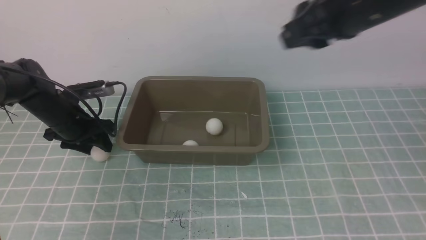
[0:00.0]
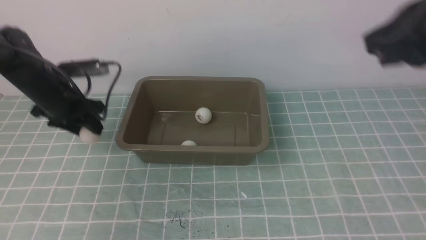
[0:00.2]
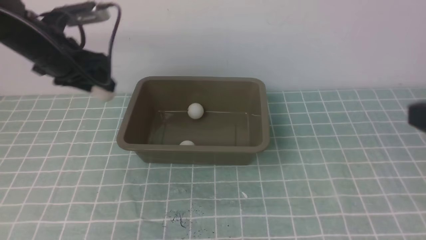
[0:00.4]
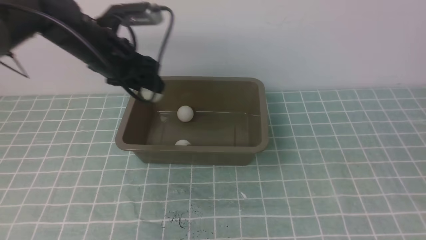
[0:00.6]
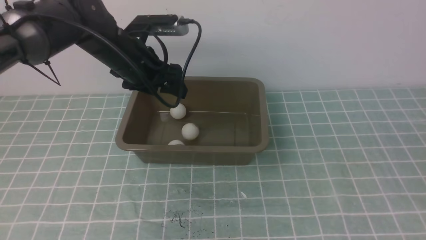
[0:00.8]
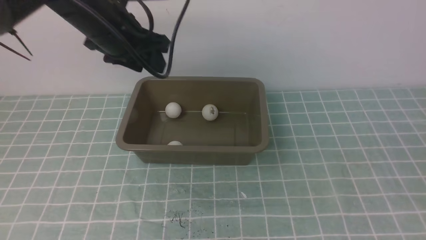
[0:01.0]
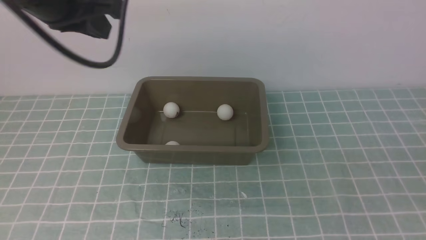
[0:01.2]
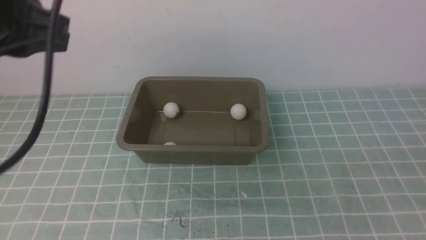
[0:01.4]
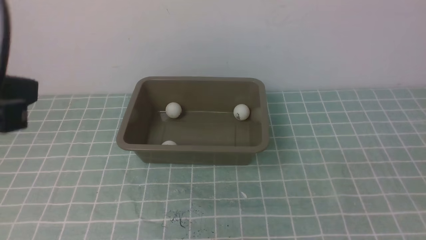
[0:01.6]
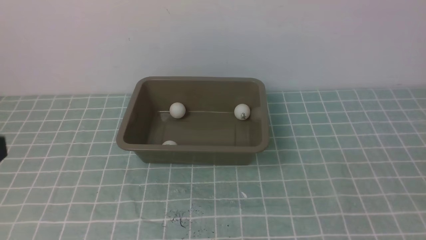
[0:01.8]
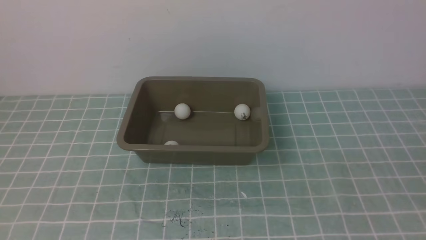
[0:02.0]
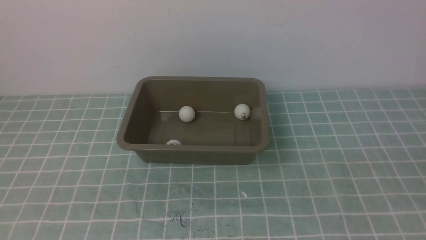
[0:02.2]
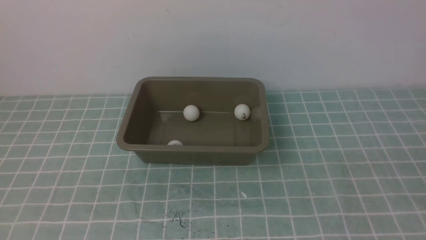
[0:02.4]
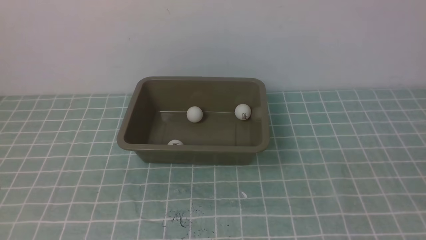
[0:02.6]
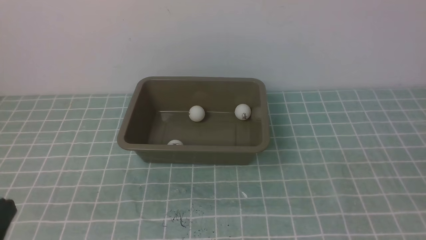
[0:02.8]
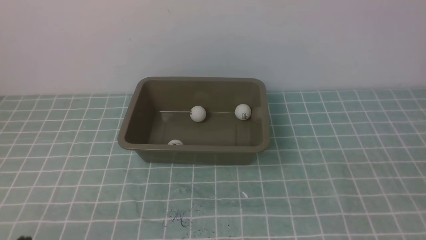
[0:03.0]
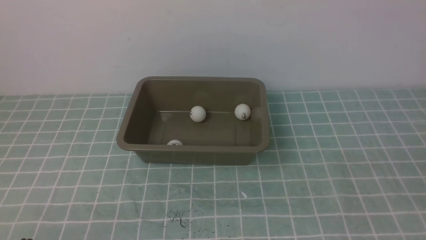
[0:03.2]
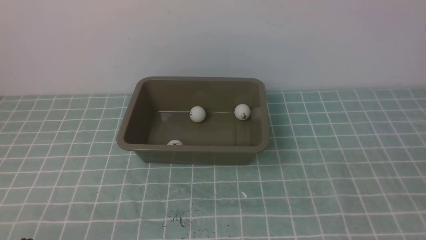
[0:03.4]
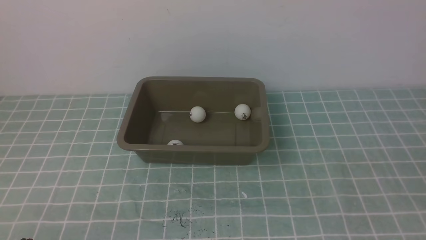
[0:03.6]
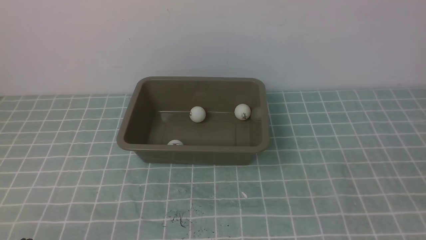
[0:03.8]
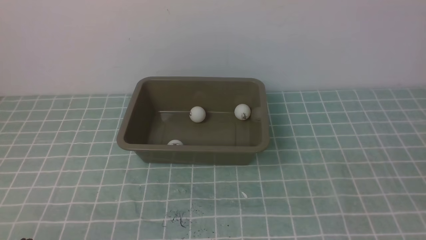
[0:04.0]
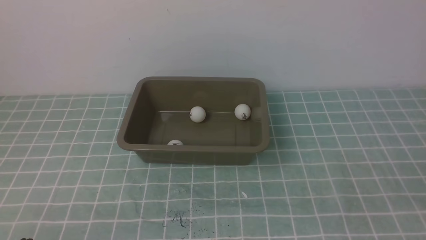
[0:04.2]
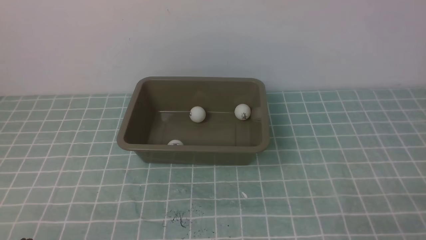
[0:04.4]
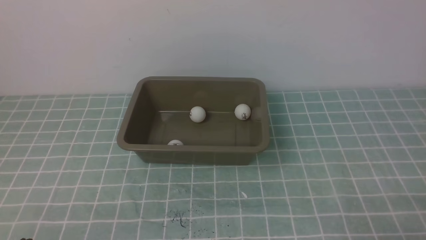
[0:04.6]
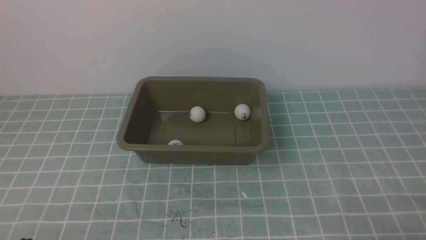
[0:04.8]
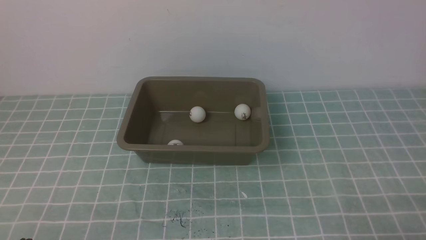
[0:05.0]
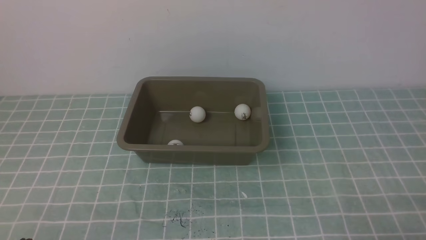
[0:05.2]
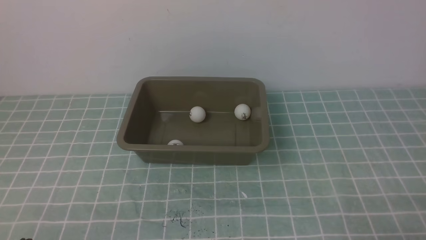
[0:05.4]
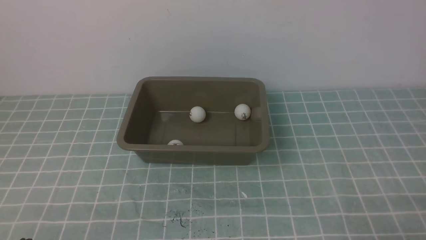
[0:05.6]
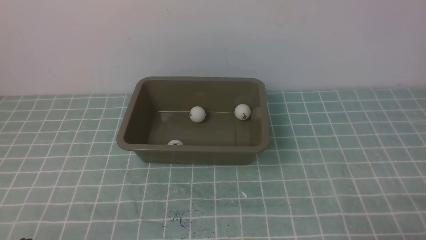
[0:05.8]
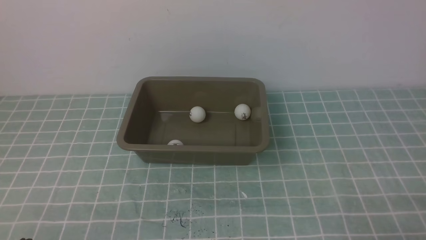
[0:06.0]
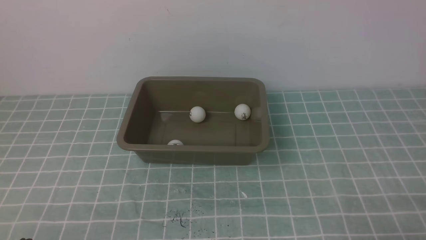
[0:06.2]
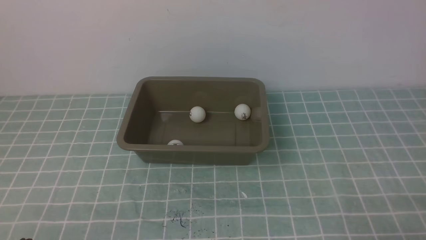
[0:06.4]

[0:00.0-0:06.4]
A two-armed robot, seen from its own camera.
Step, 0:00.0 to 0:00.6: use the left arm to clamp the table tennis ball closest to it.
Step, 0:00.8 to 0:01.2: use the left arm to put the table tennis ball into the box.
0:00.0 to 0:01.6: The right gripper travels backward and to the right by approximately 35 cm, and closes up. Meanwhile the left gripper travels upward and backward by approximately 35 cm, and closes up.
0:01.6 to 0:03.2: The left gripper moves downward and backward, about 30 cm.
0:04.8 to 0:06.4: The two grippers keep their place.

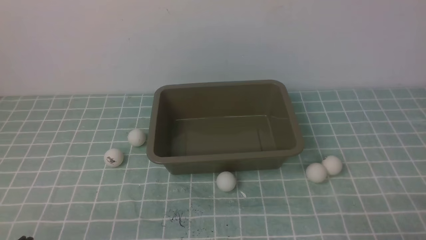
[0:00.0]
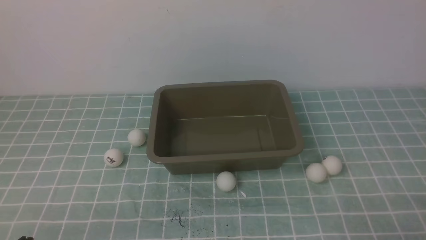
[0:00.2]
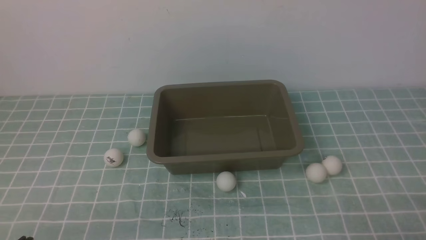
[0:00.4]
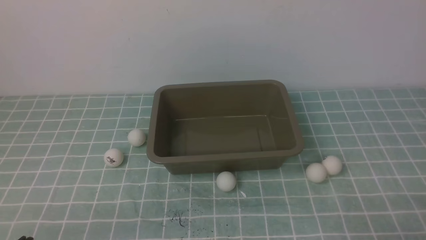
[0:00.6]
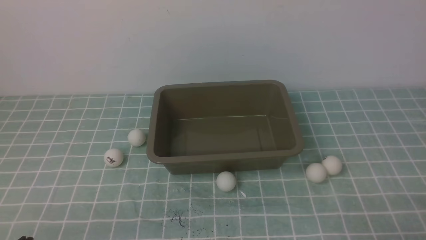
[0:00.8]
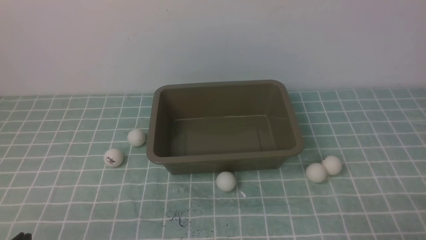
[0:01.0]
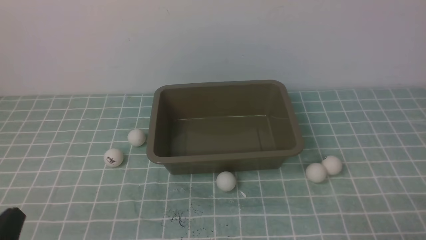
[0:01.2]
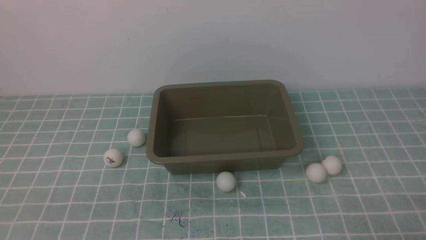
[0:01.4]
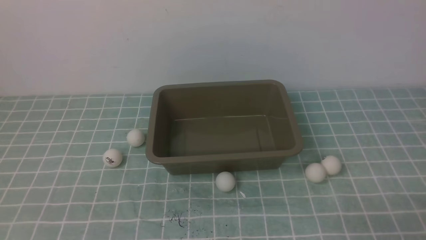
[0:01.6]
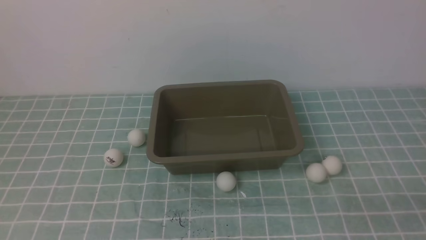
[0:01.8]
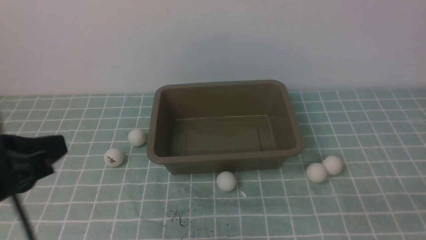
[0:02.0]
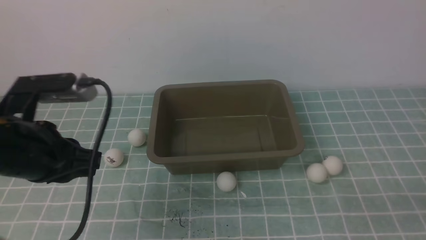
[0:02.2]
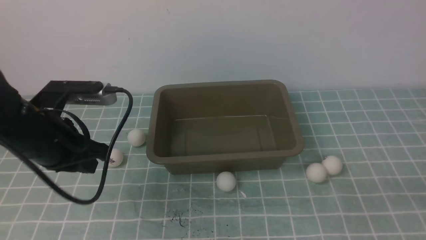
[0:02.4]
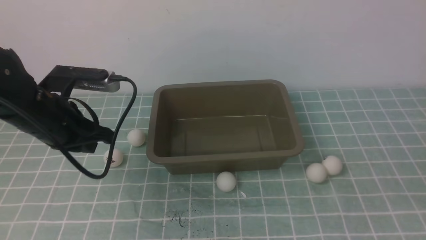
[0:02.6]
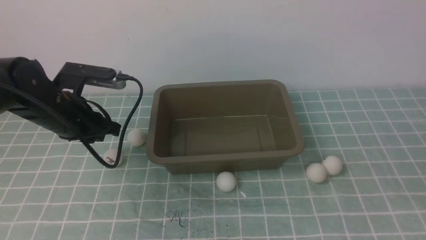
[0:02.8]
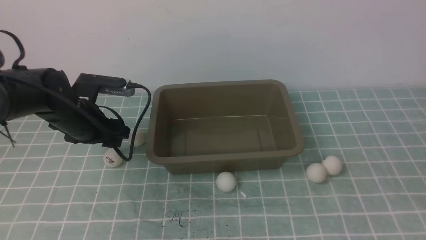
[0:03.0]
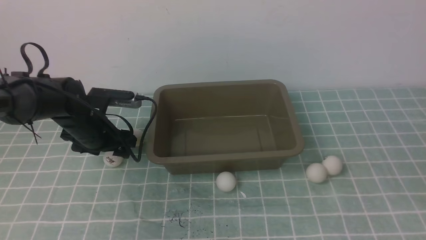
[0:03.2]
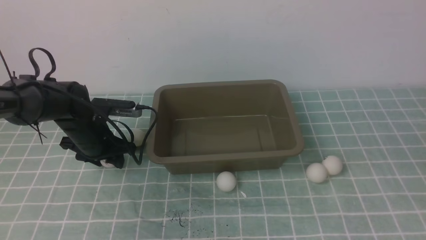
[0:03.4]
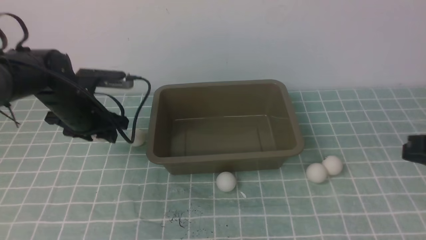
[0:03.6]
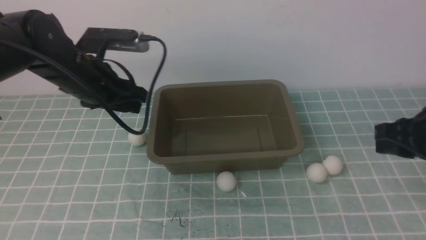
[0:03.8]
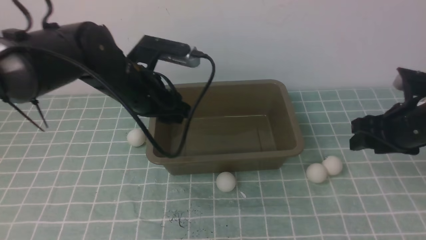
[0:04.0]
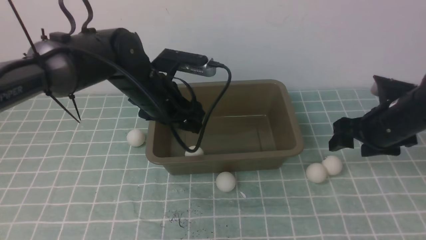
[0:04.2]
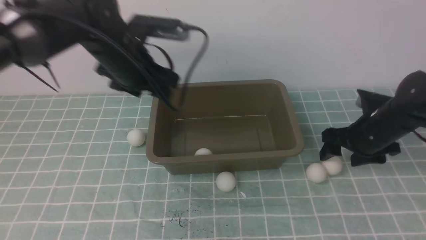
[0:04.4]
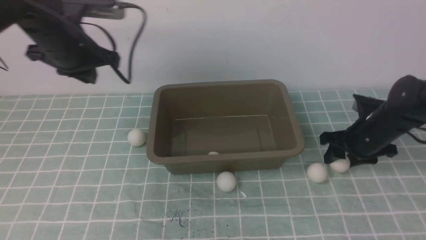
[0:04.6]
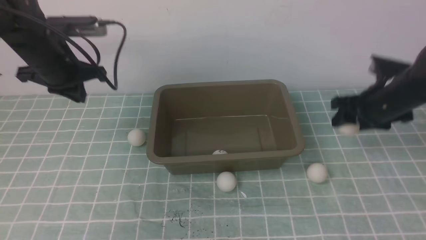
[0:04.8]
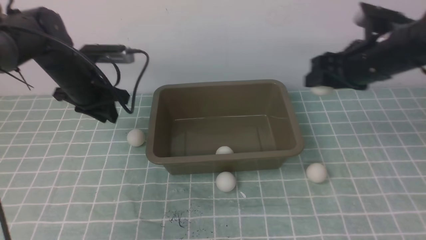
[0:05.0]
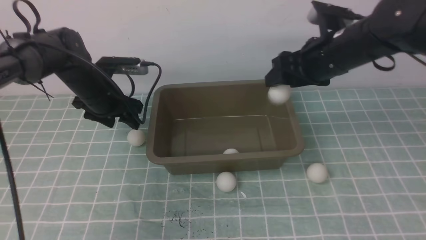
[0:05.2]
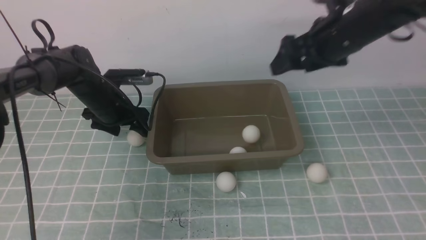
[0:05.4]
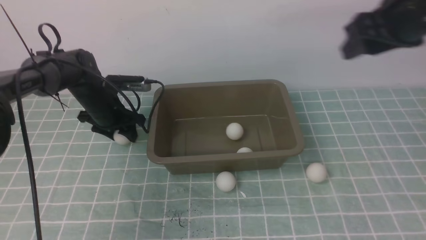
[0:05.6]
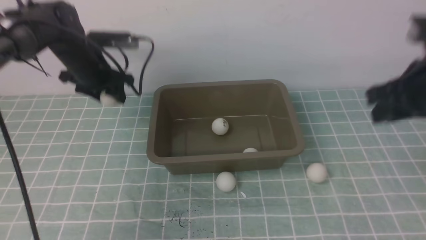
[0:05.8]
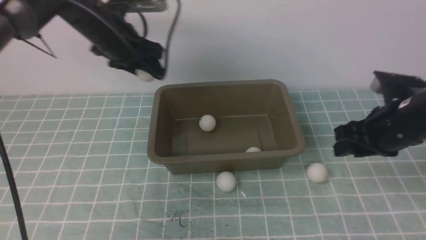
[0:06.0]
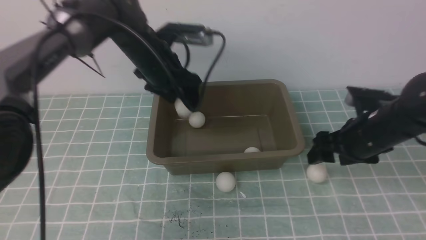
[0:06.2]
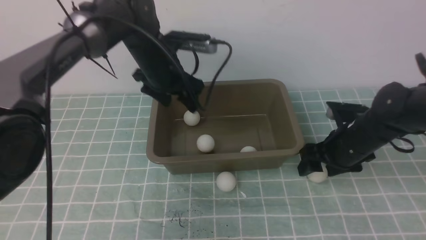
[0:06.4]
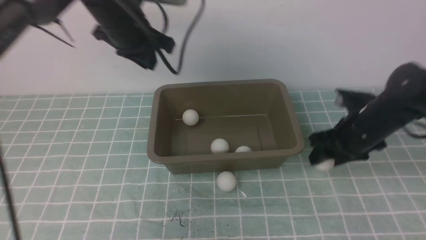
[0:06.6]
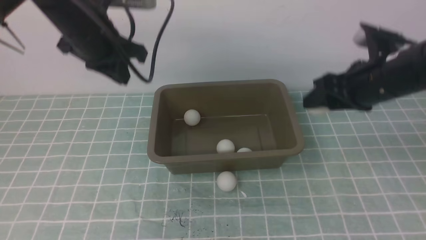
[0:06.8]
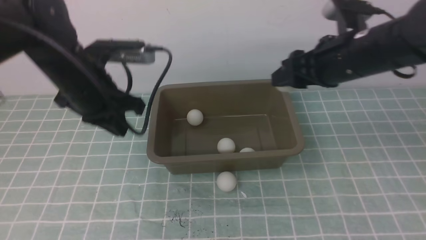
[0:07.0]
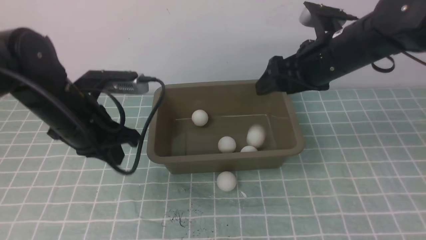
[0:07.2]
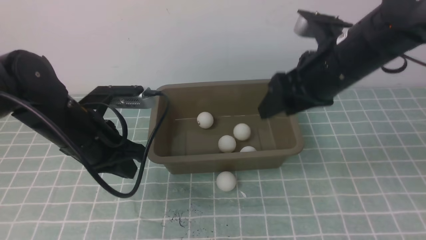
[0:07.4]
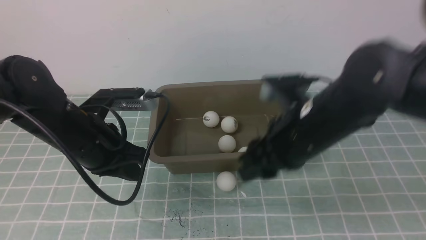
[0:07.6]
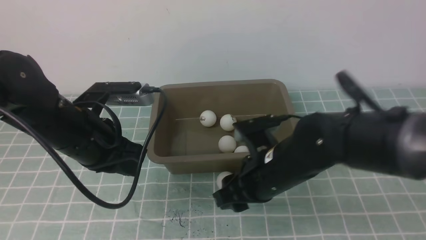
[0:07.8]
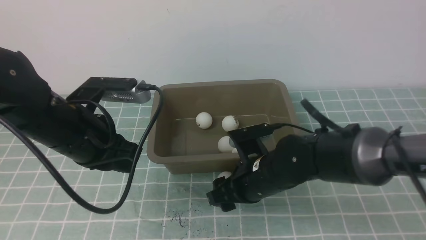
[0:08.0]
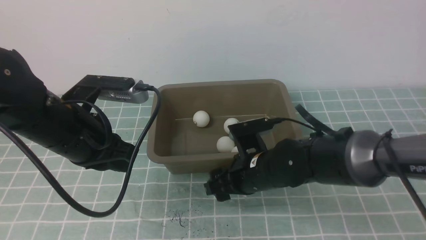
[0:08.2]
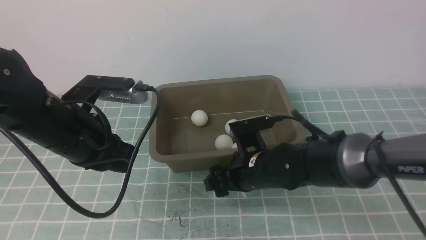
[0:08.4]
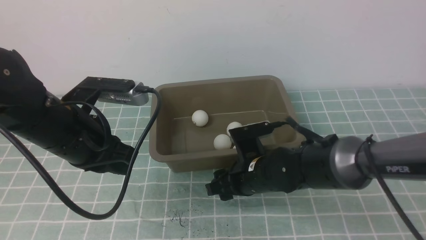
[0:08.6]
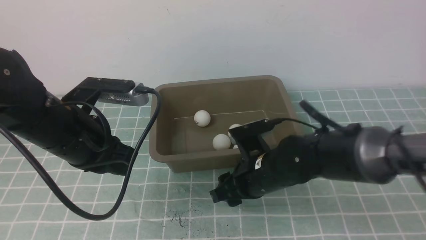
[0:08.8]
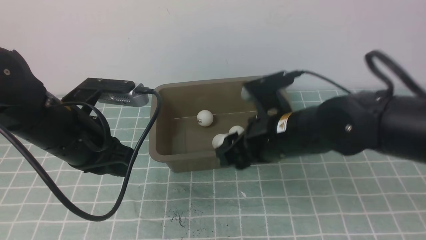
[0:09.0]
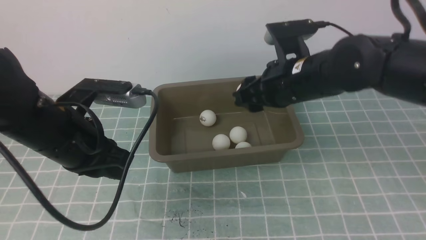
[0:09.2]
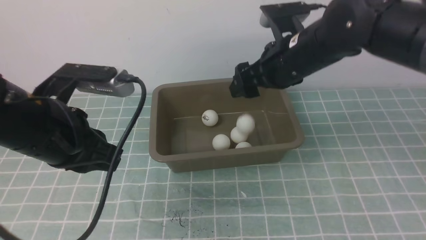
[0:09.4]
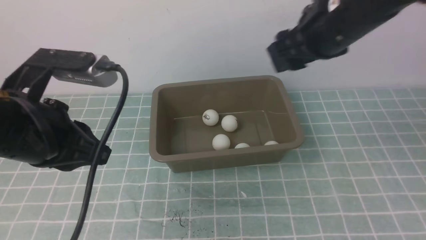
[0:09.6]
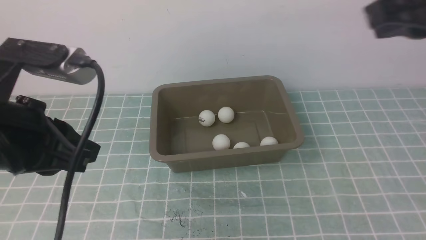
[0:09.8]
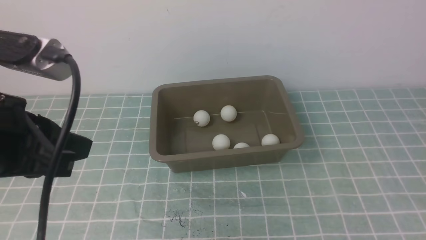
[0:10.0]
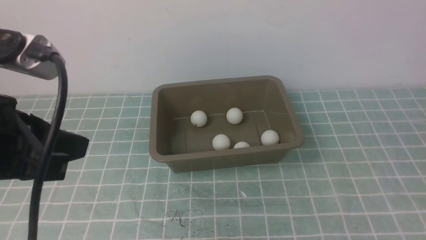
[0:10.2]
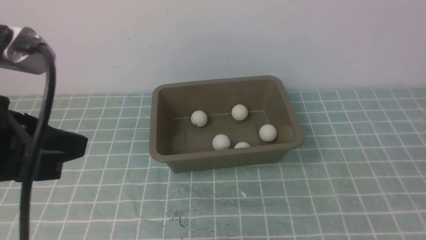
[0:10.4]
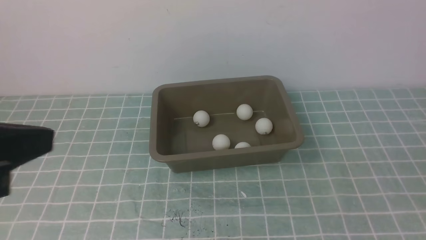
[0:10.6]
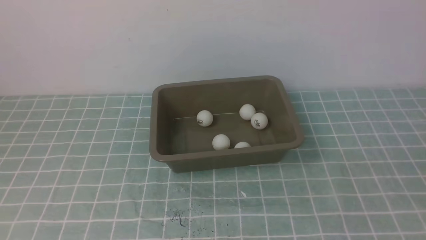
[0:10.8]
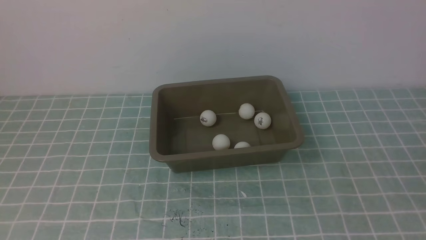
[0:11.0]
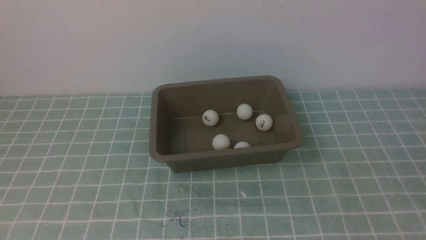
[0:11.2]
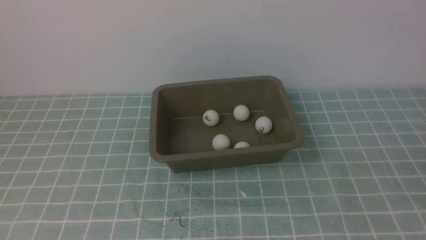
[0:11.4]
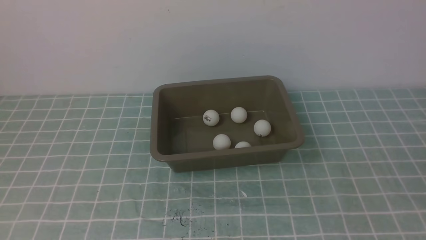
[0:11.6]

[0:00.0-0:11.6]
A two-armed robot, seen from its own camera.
Step, 0:00.0 to 0:03.4: use the left arm to clamp the table tennis ball closest to it.
Step, 0:03.6 to 0:04.0: use the left arm to put the table tennis ball into the box.
Step, 0:04.2 to 0:04.6: use the right arm to clamp the table tennis ball closest to it.
Step, 0:04.8 to 0:05.4: use the right arm to put the table tennis ball into the box.
Step, 0:05.8 to 0:06.4: use the left arm to put the table tennis ball into the box.
Step, 0:06.8 to 0:07.4: use the right arm to put the table tennis ball into the box.
Step, 0:07.6 to 0:08.8: use the right arm to clamp the table tennis ball closest to it.
Step, 0:09.0 to 0:09.4: use the right arm to put the table tennis ball into the box.
0:01.4 to 0:02.8: The left gripper heads forward, covering roughly 30 cm, and opens its fingers. The right gripper is displaced upward by roughly 10 cm.
0:02.8 to 0:04.4: The left gripper moves to the right, upward and forward, roughly 10 cm. Meanwhile the right gripper moves forward and downward, approximately 30 cm, and opens its fingers.
0:04.4 to 0:05.8: The left gripper is displaced forward and downward by roughly 10 cm, and closes, then opens again, while the right gripper shifts some 15 cm upward, and closes up.
0:05.8 to 0:07.2: The right gripper goes roughly 10 cm to the left, travels downward and back again, some 15 cm each way, and opens up, while the left gripper moves backward, some 15 cm, and closes up.
0:07.2 to 0:08.8: The right gripper is displaced downward, to the left and backward by approximately 15 cm.
0:08.8 to 0:10.2: The right gripper travels backward, to the right and upward by some 40 cm, and closes, while the left gripper moves backward and upward, roughly 15 cm.
0:10.2 to 0:11.6: The left gripper shifts about 10 cm backward, while the right gripper travels downward by about 5 cm.
